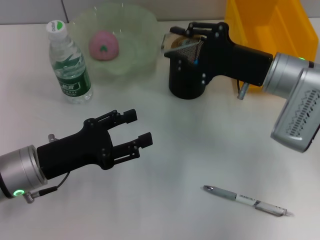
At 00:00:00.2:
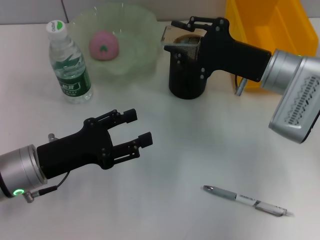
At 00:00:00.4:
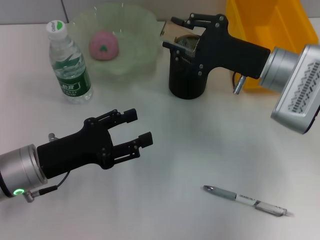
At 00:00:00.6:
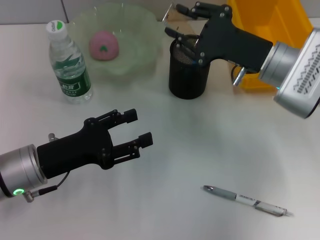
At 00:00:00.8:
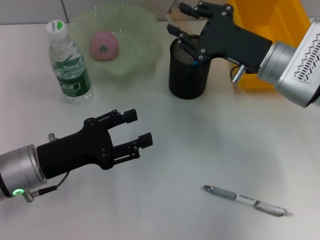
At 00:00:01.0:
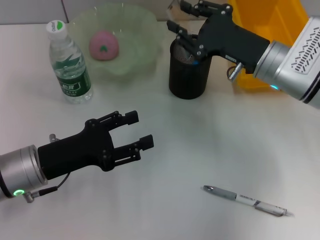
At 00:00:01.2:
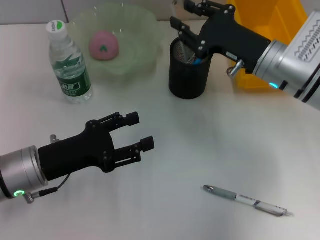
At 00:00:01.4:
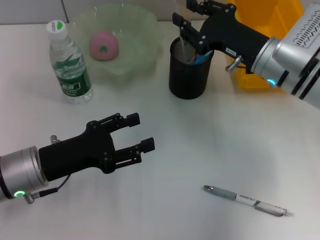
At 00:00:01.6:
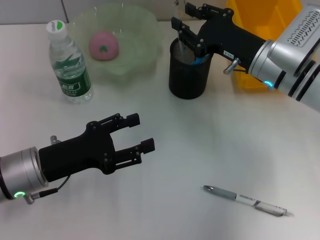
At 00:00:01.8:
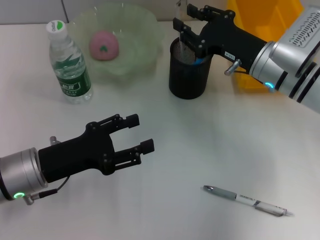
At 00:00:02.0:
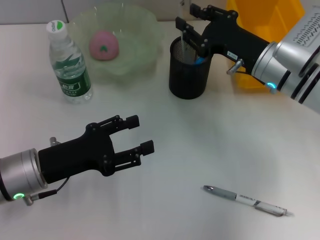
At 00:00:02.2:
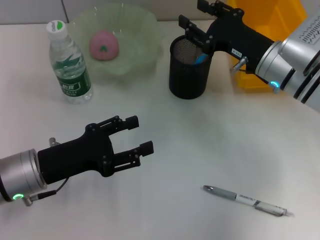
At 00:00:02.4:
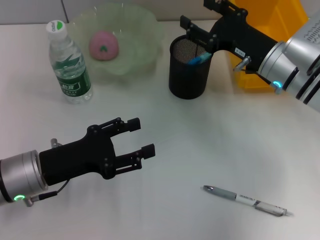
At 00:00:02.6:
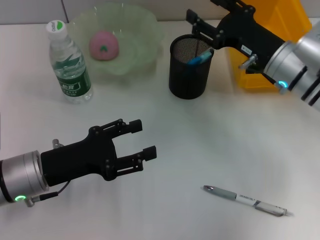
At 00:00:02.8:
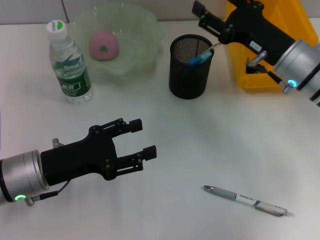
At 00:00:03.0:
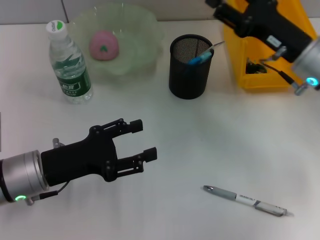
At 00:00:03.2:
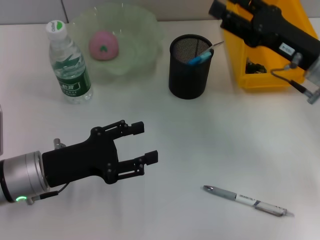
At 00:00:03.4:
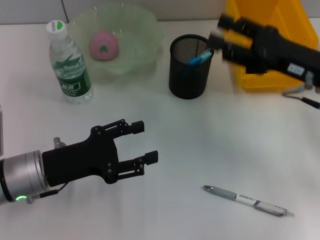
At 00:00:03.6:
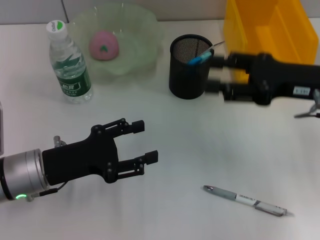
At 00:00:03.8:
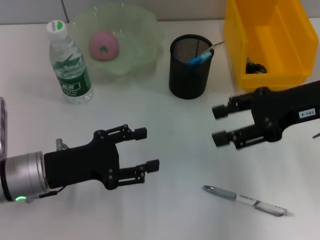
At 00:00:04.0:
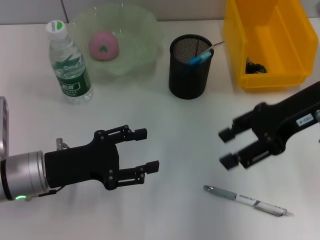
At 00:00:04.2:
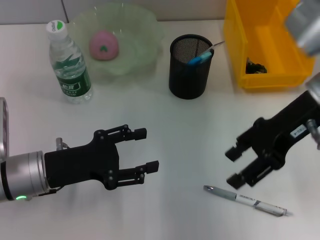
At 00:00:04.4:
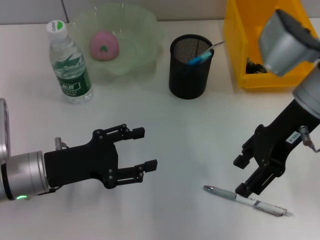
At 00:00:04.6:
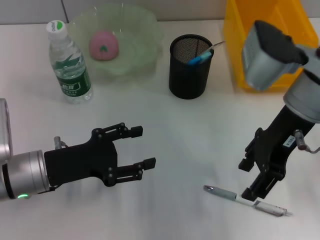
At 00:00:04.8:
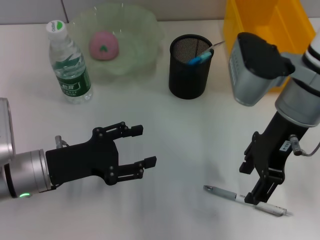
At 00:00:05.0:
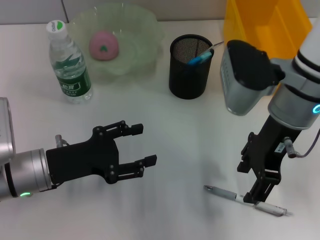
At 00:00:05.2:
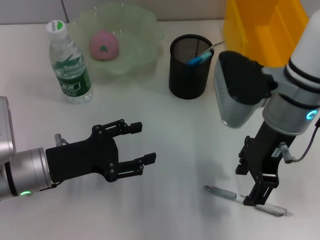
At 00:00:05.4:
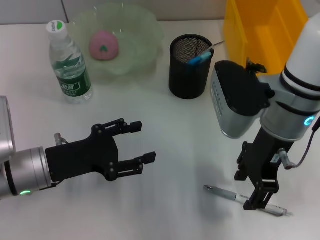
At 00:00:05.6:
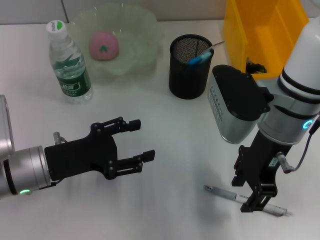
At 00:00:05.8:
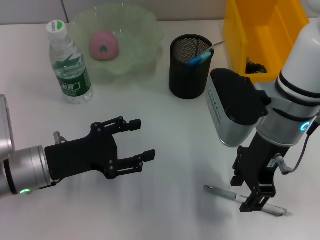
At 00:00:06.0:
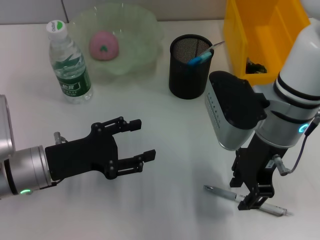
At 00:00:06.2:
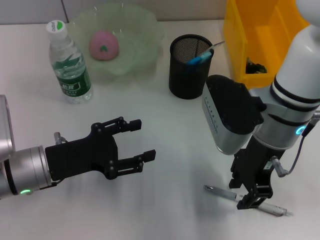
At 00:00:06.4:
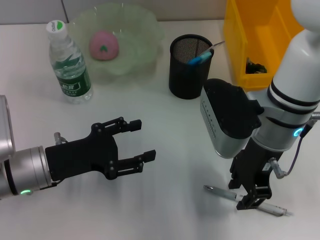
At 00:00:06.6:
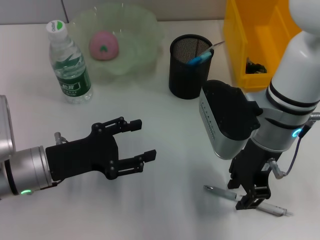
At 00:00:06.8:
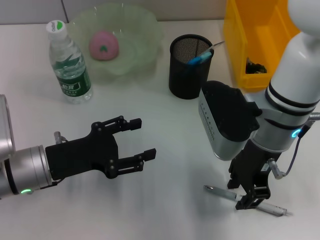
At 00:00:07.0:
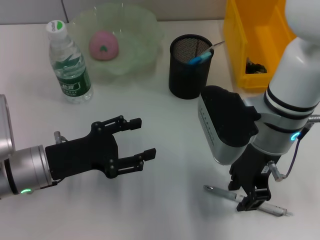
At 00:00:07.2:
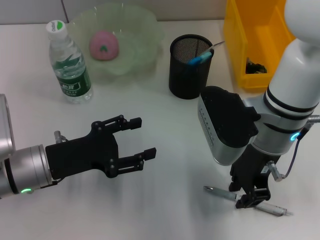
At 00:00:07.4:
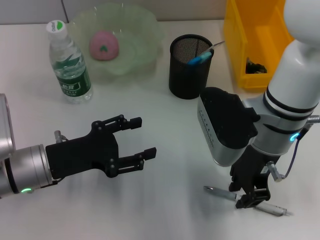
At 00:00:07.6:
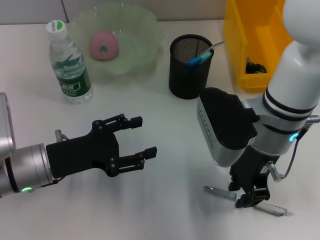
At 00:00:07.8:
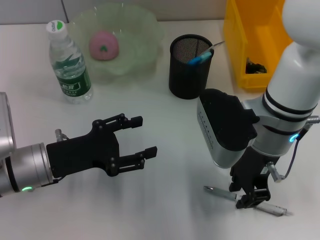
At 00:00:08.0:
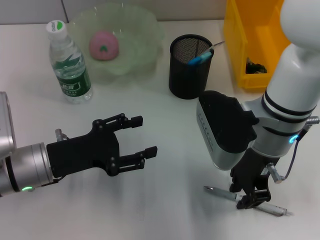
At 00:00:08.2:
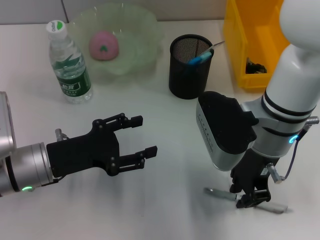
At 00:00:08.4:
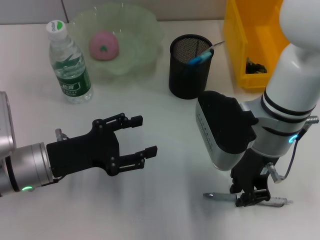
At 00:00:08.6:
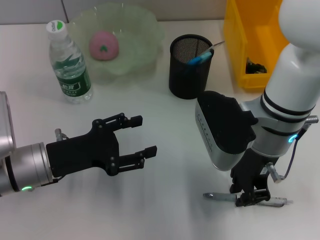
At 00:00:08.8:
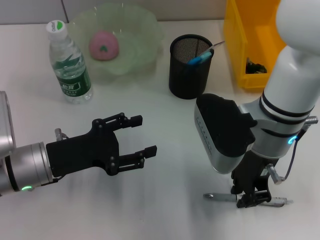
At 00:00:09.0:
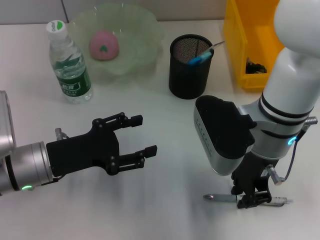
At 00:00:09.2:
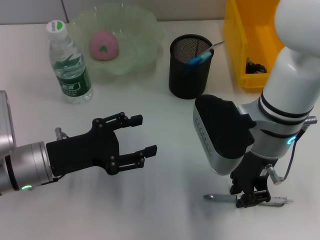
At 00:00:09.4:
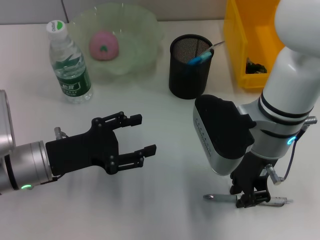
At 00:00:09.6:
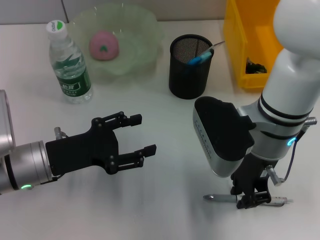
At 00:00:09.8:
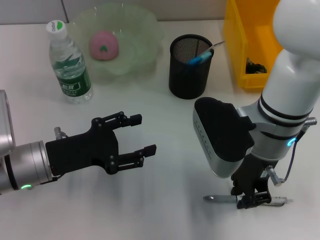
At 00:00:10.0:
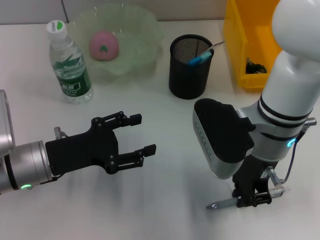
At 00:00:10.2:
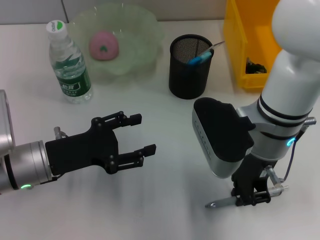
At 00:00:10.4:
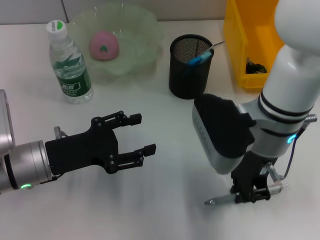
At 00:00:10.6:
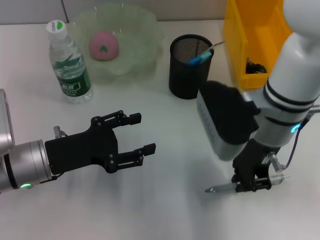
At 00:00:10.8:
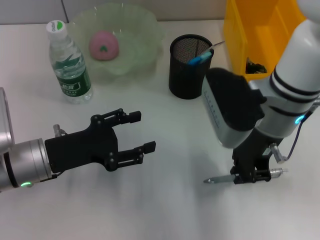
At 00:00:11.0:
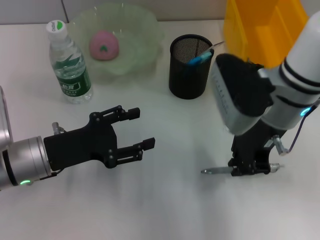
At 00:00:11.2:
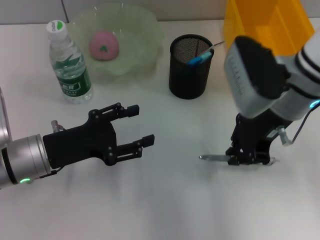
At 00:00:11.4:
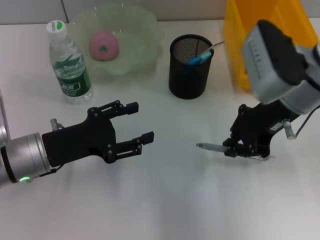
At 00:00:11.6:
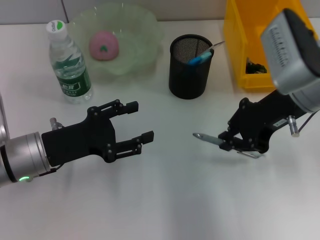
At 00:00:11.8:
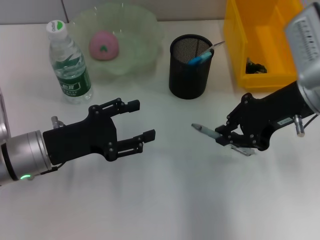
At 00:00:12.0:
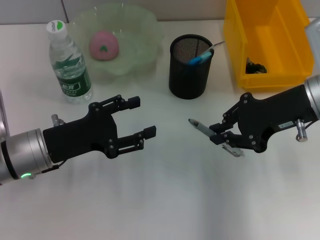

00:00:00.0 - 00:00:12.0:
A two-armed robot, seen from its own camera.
Step, 00:00:00.0 - 00:00:02.4: Place the ruler into the pen holder with the right hand.
Step, 00:00:02.6 - 00:00:10.0: Grab the gray spring-action pen with the right hand.
00:00:01.6 - 00:00:03.0: The right gripper shifts by about 5 cm, and opens its fingers.
00:00:03.0 - 00:00:04.4: The right gripper goes roughly 5 cm upward.
00:00:04.4 - 00:00:06.0: The right gripper shifts approximately 5 cm to the left.
00:00:06.0 - 00:00:07.6: The grippers stay close to where they were, moving slightly.
00:00:07.6 - 00:00:10.4: Both grippers stay put.
00:00:10.4 - 00:00:12.0: The right gripper heads to the right, covering about 10 cm.

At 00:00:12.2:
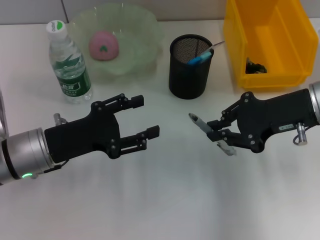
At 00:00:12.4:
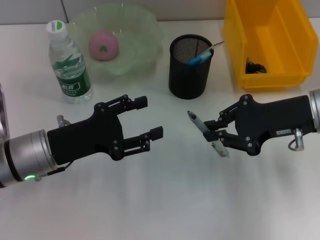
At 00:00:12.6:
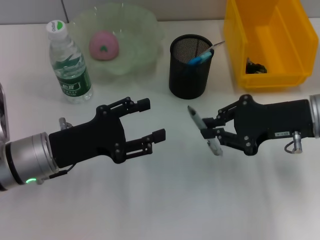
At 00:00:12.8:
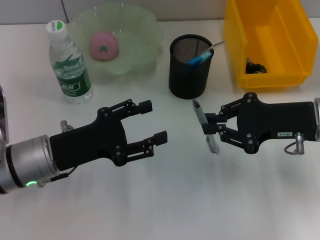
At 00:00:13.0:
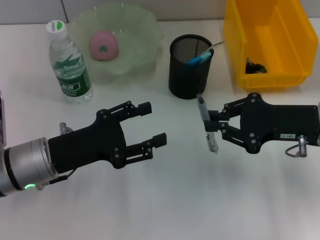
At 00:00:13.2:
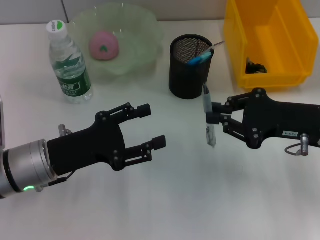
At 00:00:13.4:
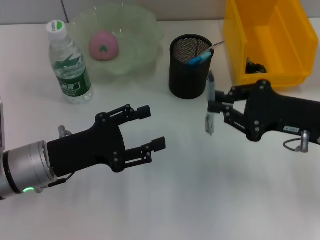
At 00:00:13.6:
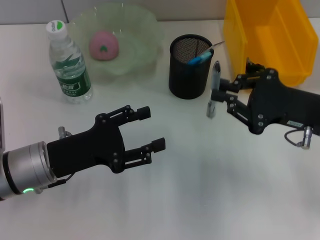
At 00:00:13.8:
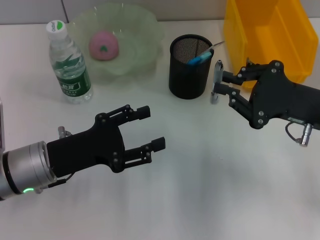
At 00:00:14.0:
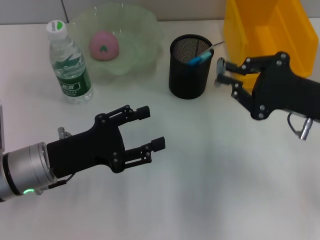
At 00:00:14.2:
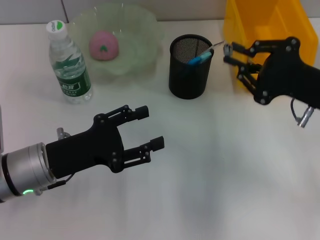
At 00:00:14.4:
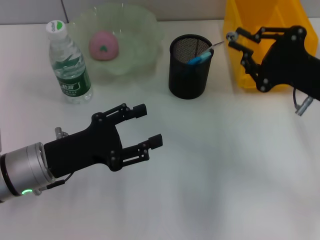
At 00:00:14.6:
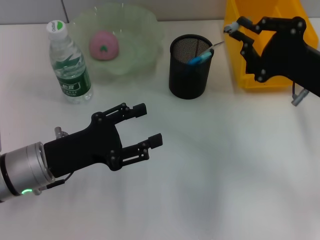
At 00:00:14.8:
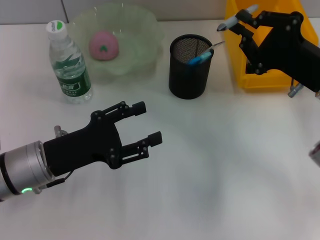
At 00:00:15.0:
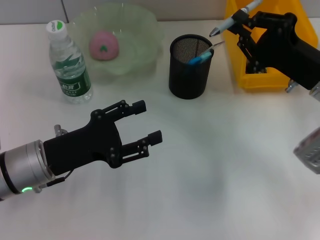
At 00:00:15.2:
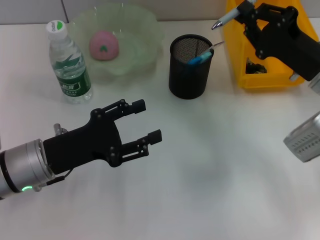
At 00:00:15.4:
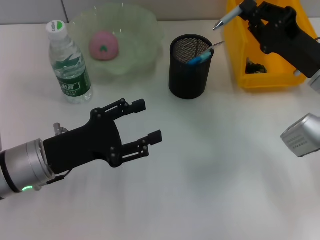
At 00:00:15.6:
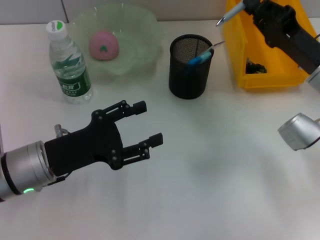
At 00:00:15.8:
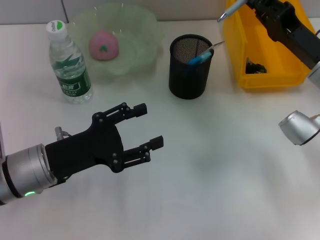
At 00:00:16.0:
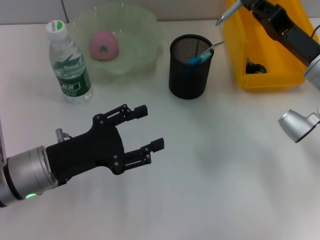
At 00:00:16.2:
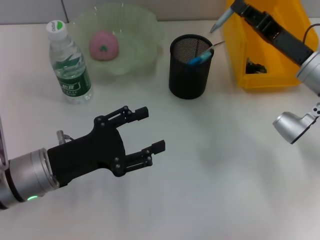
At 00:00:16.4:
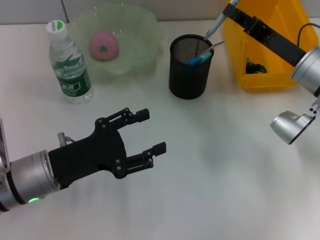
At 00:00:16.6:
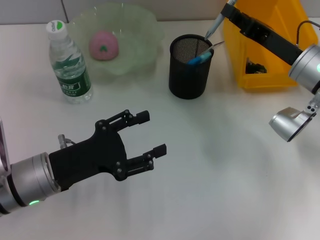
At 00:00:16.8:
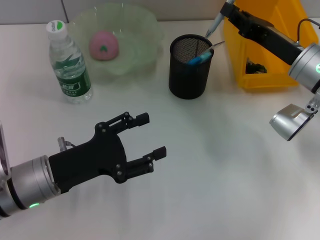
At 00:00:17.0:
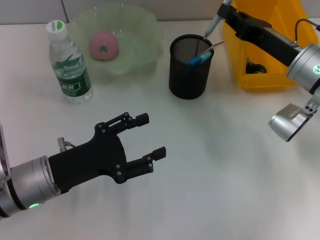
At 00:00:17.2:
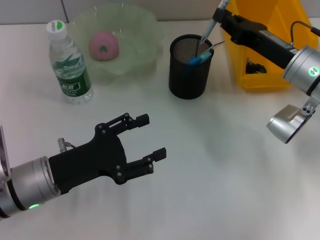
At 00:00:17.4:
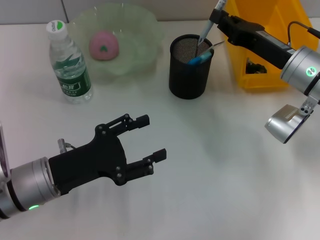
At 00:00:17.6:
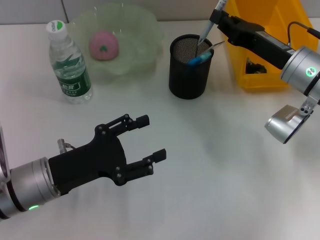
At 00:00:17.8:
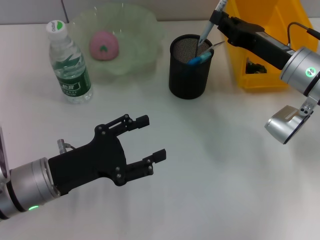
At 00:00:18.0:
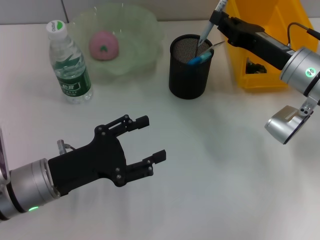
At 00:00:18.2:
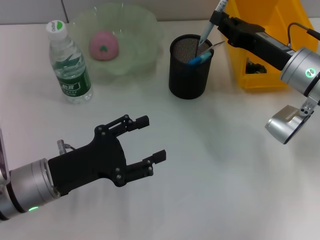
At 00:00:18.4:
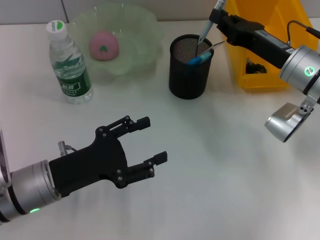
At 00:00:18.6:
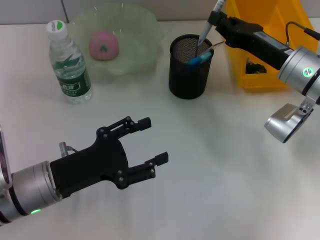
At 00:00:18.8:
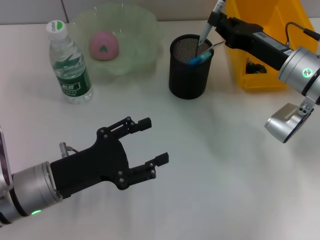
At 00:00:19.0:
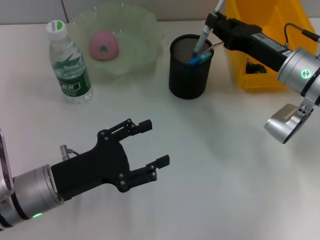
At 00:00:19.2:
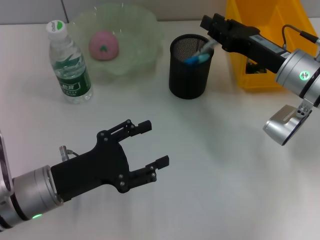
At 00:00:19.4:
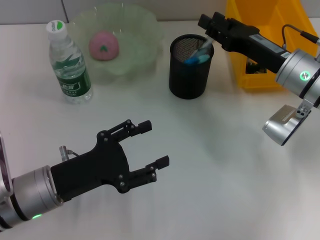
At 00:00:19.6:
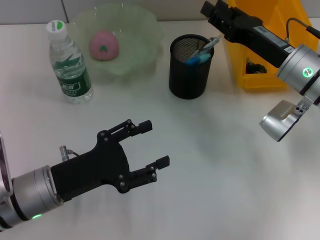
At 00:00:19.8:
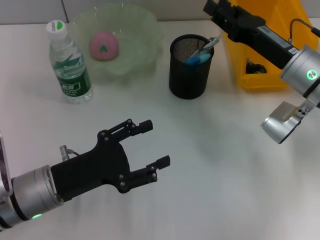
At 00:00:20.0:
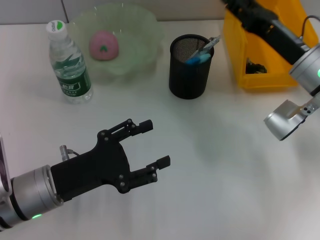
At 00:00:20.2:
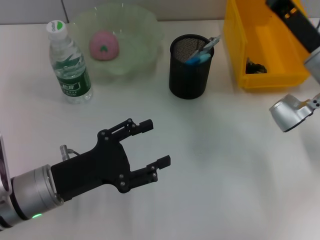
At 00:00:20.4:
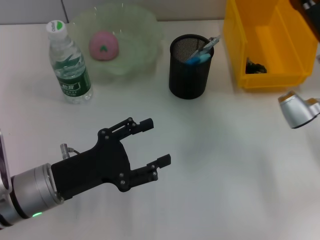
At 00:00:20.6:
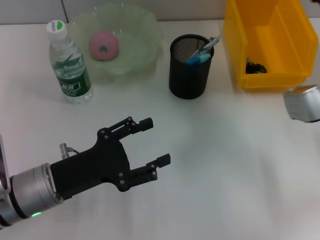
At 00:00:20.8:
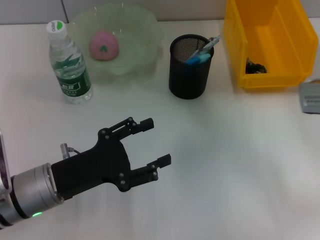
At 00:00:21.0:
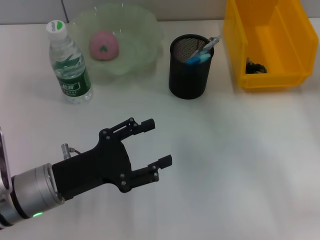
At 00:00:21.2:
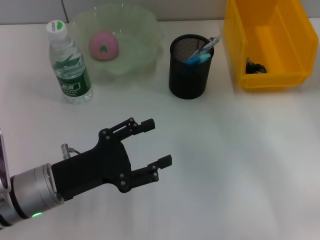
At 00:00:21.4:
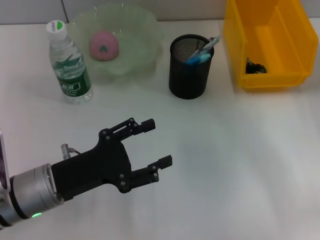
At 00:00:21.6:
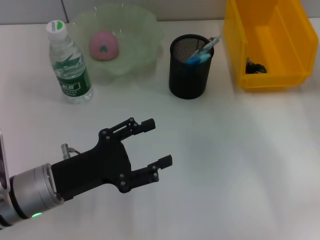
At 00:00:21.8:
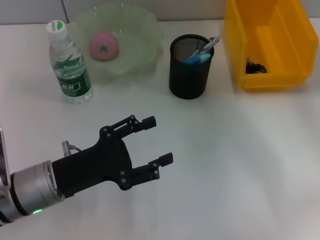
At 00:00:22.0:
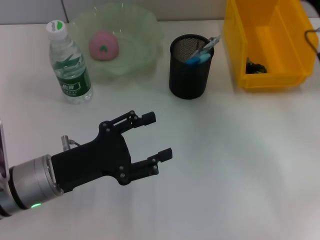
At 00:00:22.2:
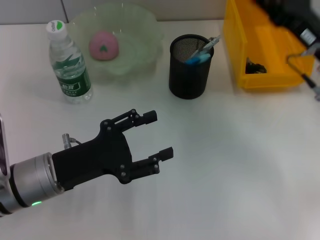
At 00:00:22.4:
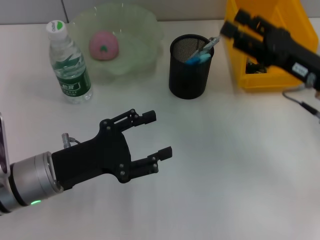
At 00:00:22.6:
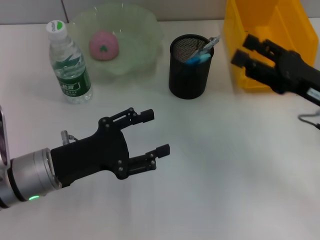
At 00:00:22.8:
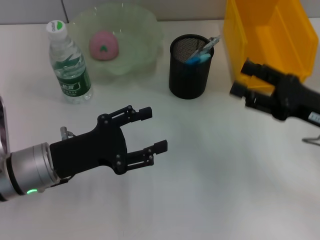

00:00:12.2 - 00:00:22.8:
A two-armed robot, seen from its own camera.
Step, 00:00:12.2 - 00:00:19.4: Place the gray spring-action pen into the pen holder with the right hand.
00:00:12.2 - 00:00:13.8: The right gripper changes place by some 5 cm.
00:00:16.8 - 00:00:18.2: The grippers move only a little.
00:00:18.2 - 00:00:19.8: The right gripper opens.
00:00:19.8 - 00:00:21.2: The right gripper shifts roughly 10 cm to the right.
00:00:21.2 - 00:00:22.8: The right gripper is displaced backward by some 5 cm.
